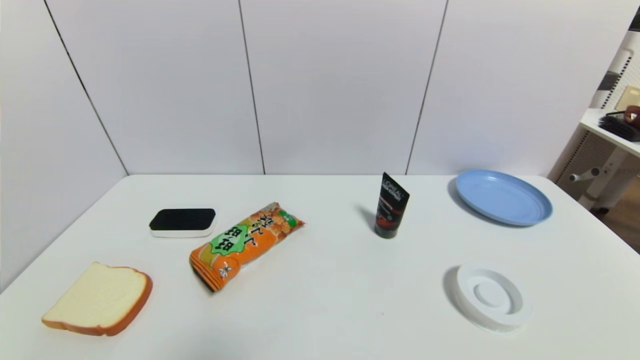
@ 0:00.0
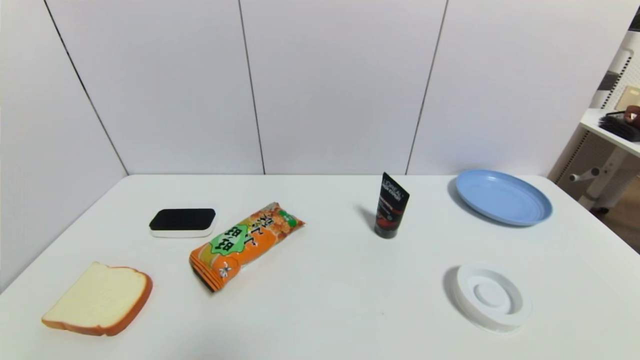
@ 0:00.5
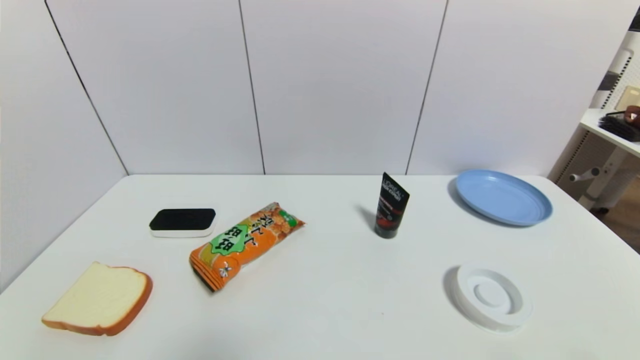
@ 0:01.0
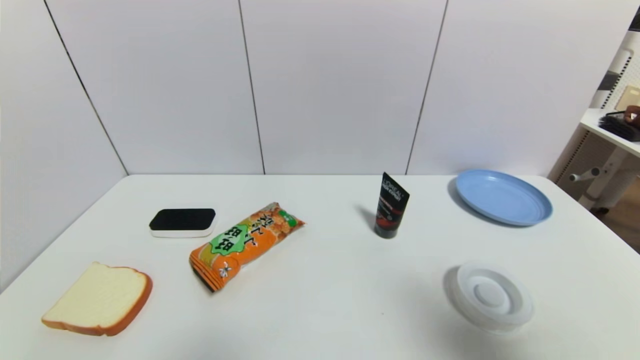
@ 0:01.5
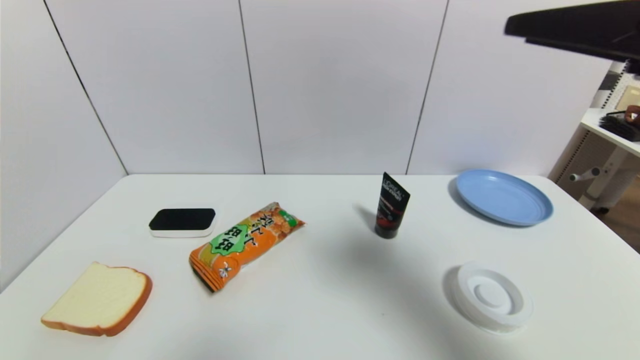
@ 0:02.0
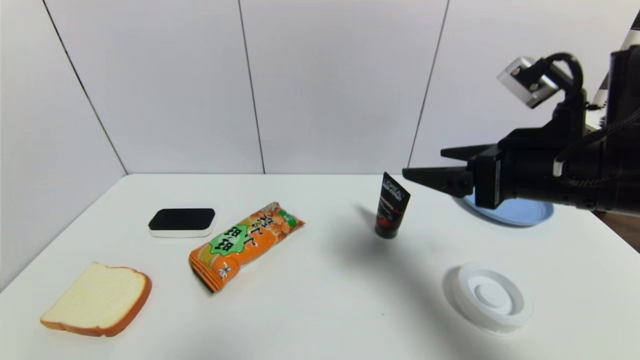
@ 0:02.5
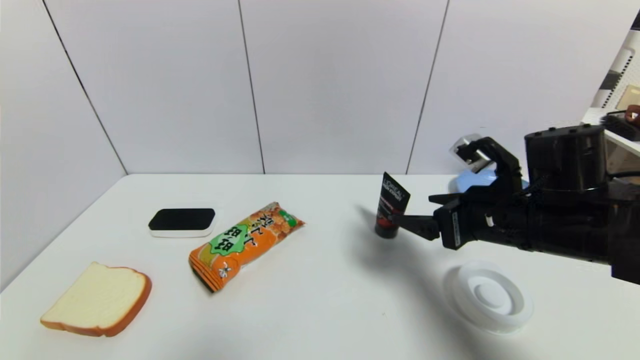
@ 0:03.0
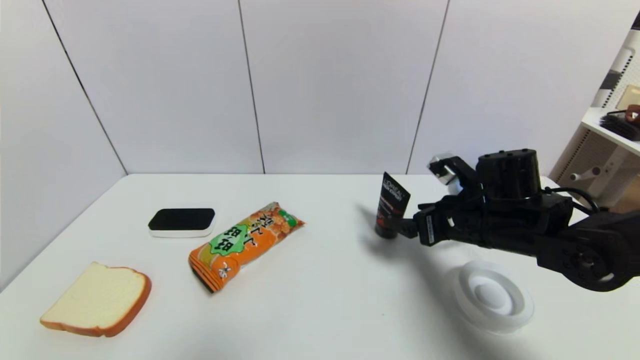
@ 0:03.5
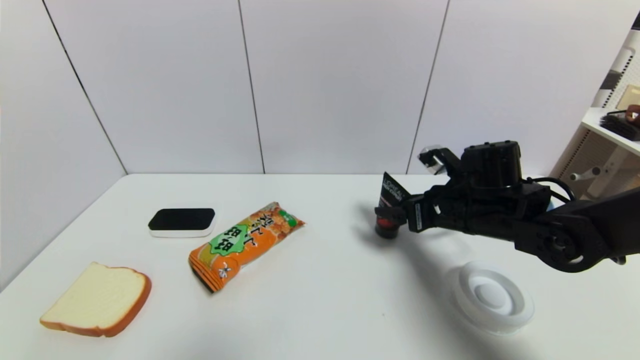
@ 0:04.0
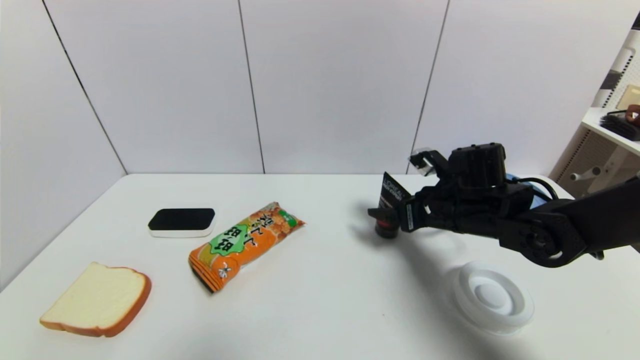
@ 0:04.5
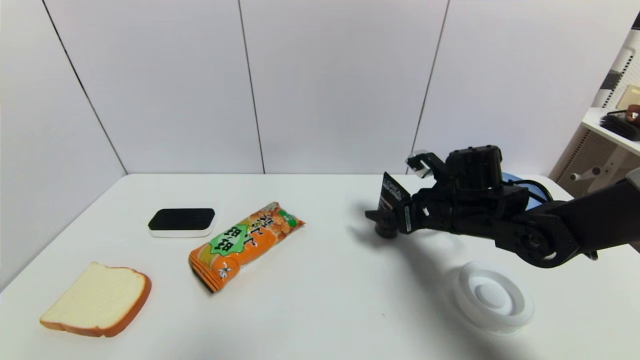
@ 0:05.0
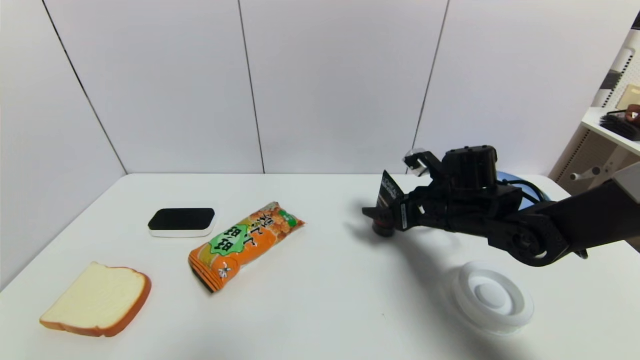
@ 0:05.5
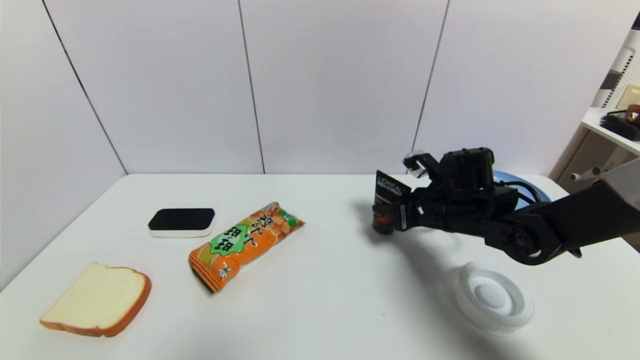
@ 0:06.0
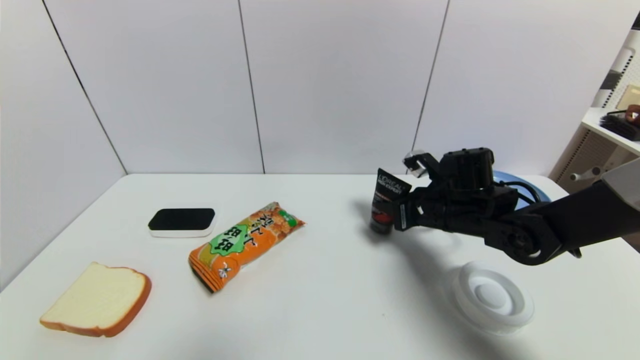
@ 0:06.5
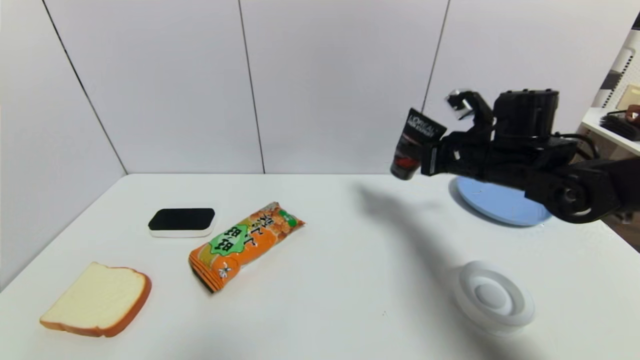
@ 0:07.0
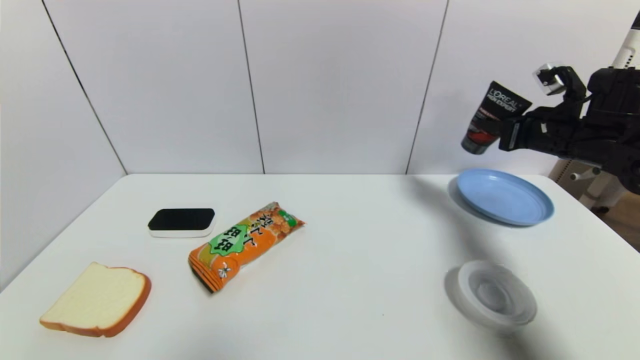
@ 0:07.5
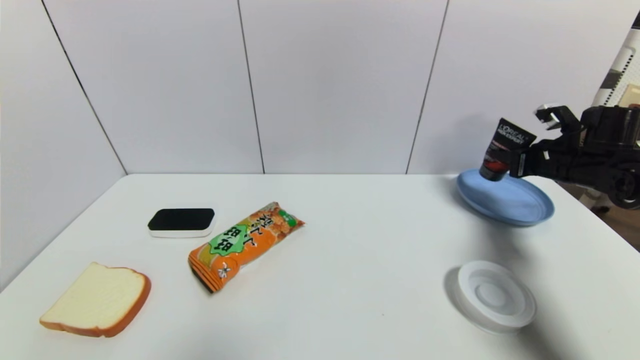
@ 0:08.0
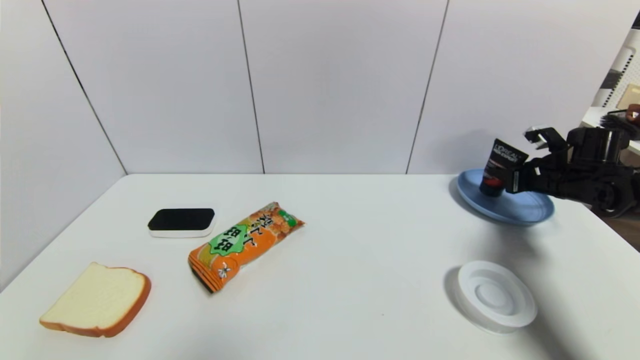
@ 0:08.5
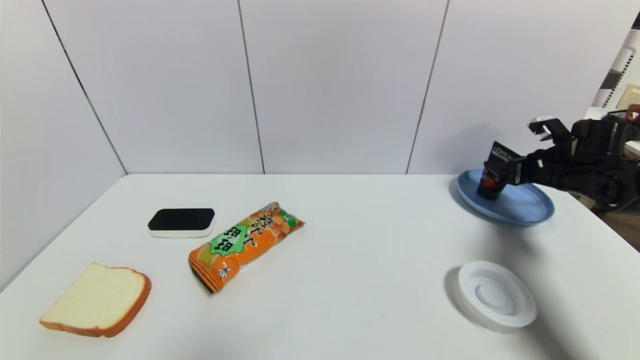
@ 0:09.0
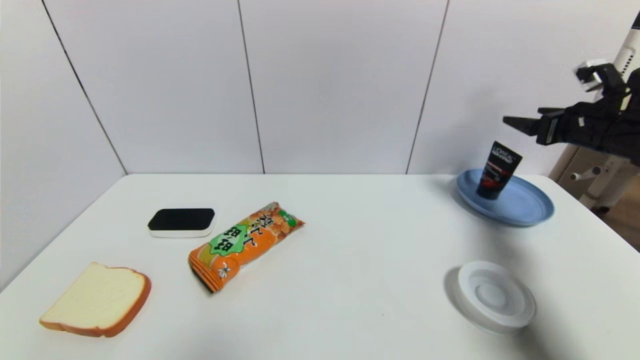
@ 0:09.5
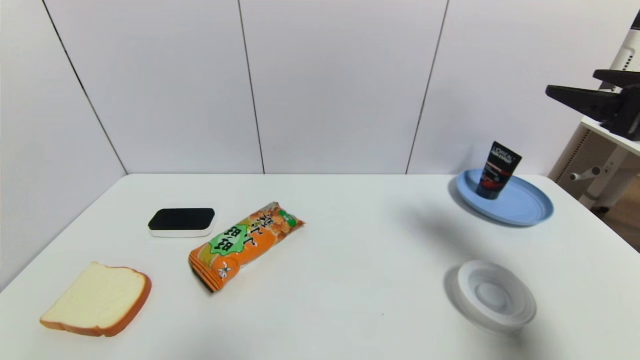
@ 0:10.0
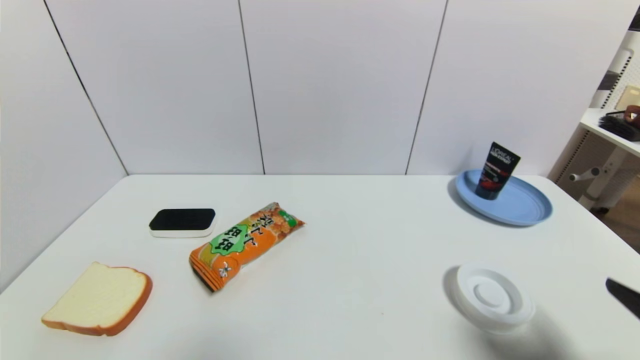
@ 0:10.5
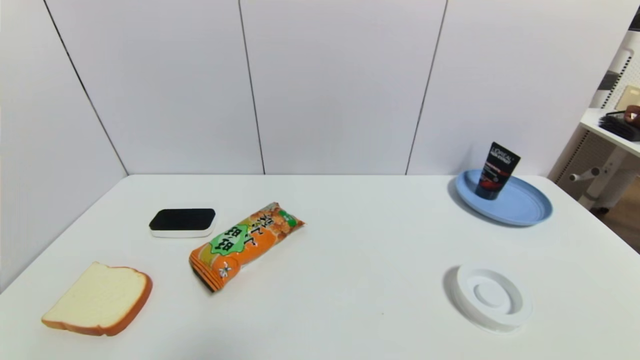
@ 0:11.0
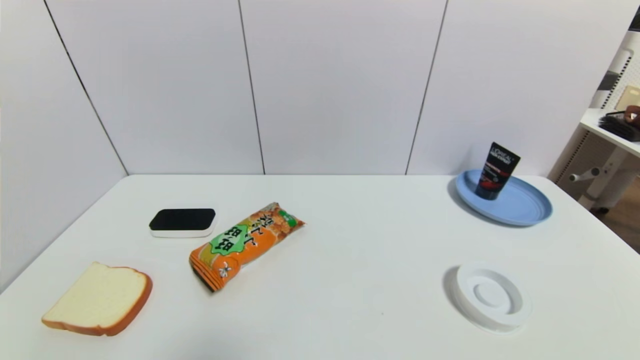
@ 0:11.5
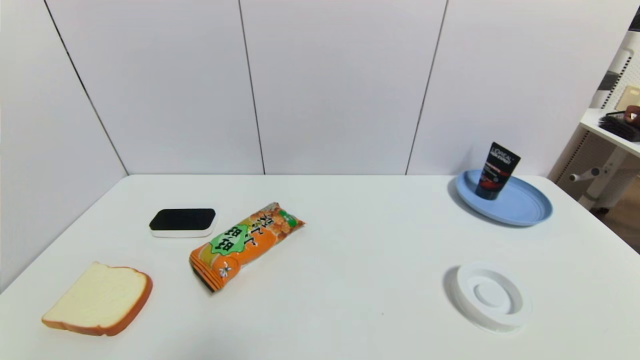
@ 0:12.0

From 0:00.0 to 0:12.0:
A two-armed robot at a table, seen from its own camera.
Task of the whole recording: use a gripper to pick the target object and place on the blue plate.
Step, from 0:00.0 to 0:06.0: Grasp the soft facial cleanser with the right gripper.
Step, from 0:06.5 to 0:09.0: Place the soft facial cleanser on the blue plate with the right gripper.
From 0:00.0 to 0:02.0: The right gripper is displaced upward and forward by approximately 35 cm.
From 0:02.0 to 0:04.0: The right gripper travels downward and forward by about 30 cm.
From 0:04.0 to 0:06.0: The right gripper closes its fingers.
From 0:06.0 to 0:08.0: The right gripper is displaced to the right by some 20 cm.
From 0:08.0 to 0:10.0: The right gripper heads backward and upward, covering roughly 20 cm, and opens up.
From 0:10.0 to 0:12.0: The right gripper is displaced backward and downward by roughly 35 cm.

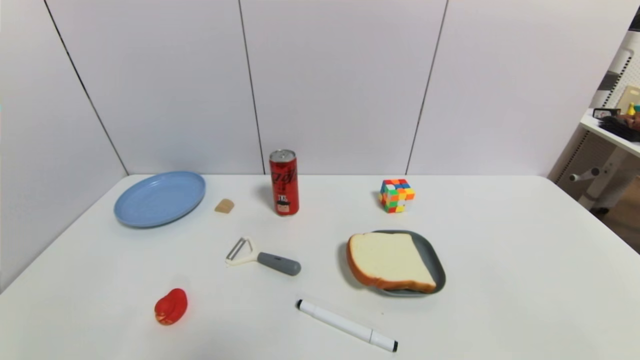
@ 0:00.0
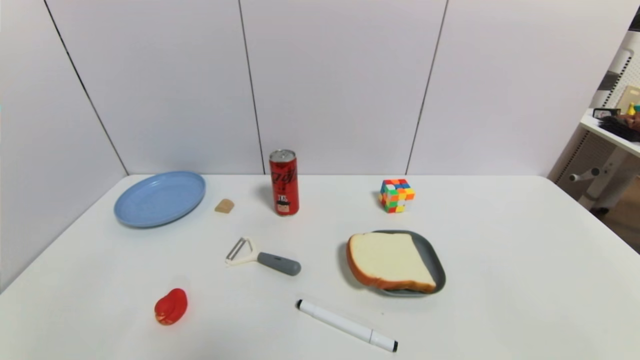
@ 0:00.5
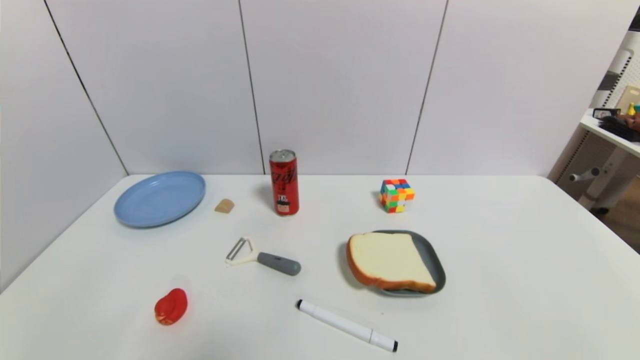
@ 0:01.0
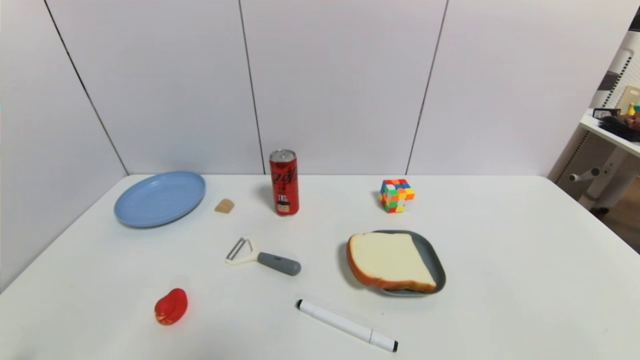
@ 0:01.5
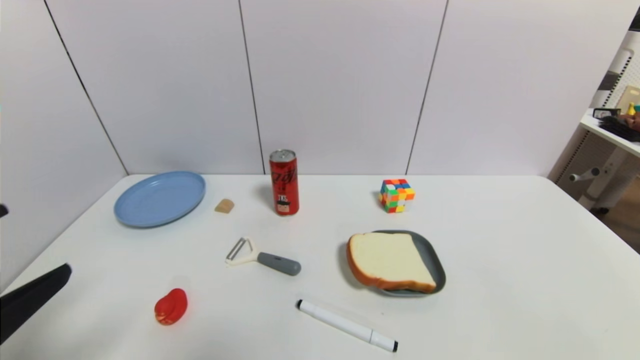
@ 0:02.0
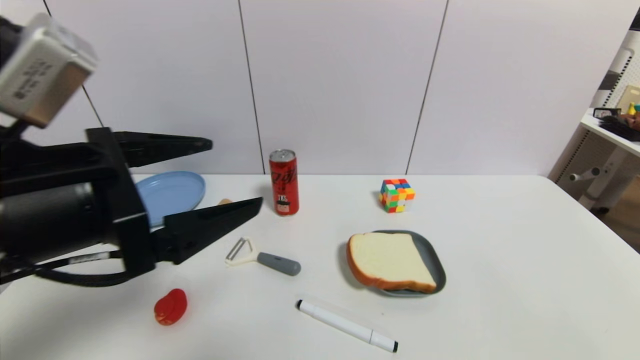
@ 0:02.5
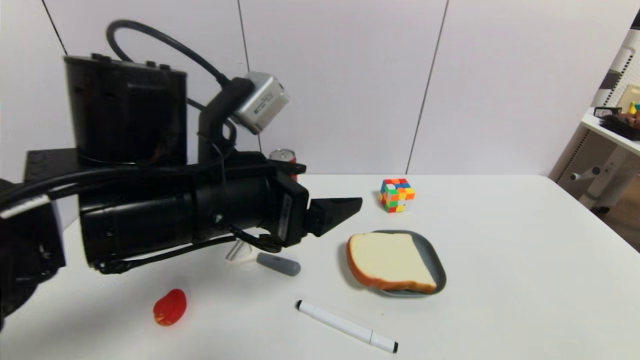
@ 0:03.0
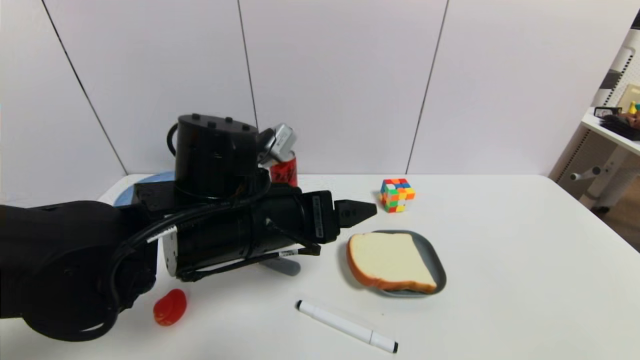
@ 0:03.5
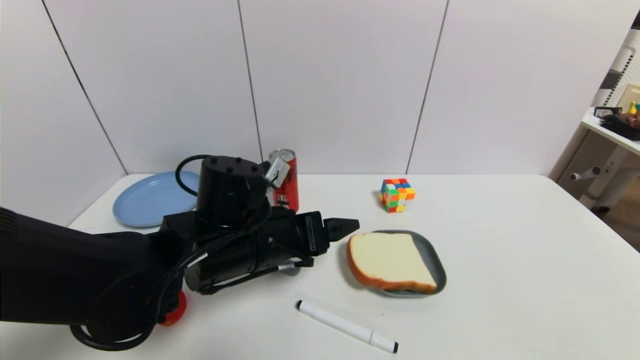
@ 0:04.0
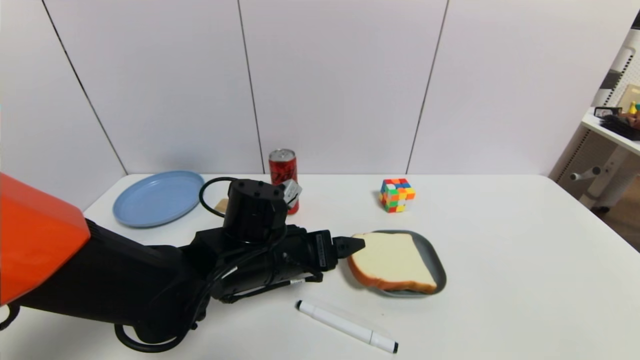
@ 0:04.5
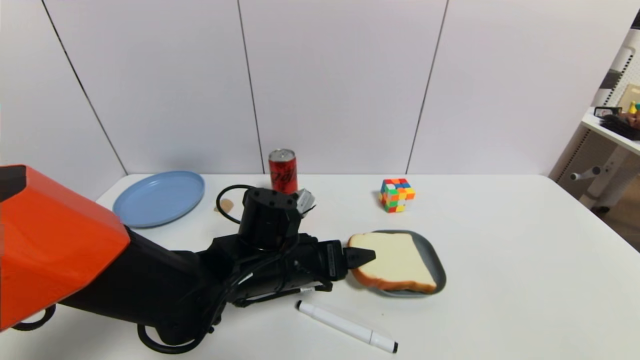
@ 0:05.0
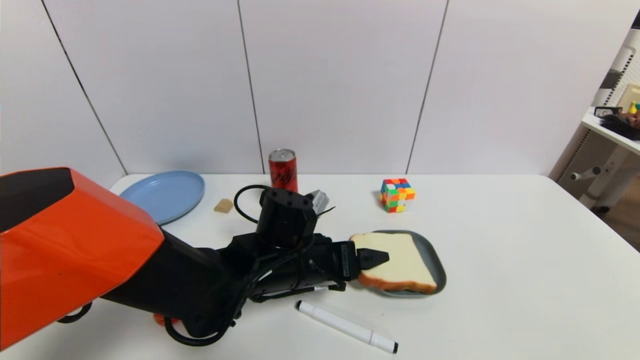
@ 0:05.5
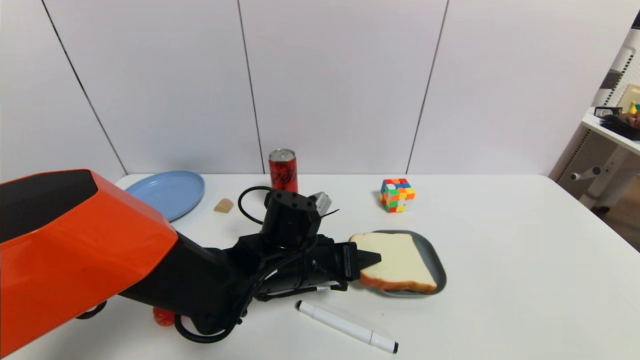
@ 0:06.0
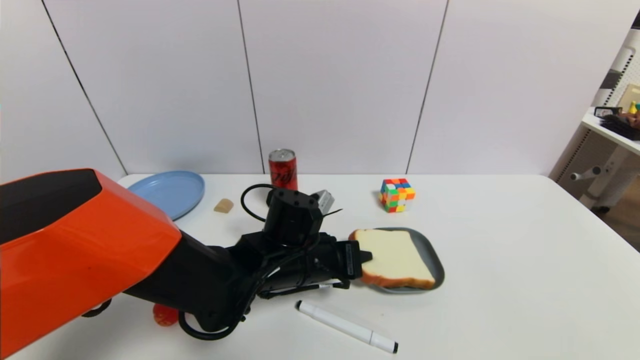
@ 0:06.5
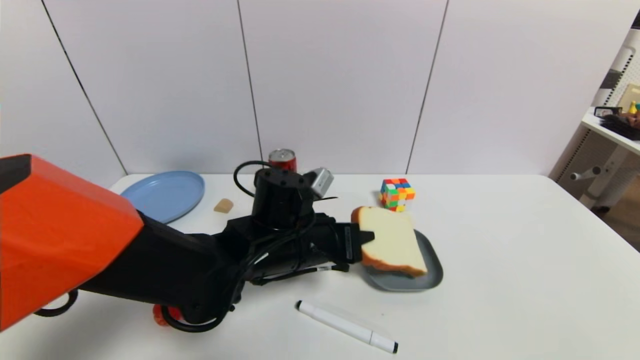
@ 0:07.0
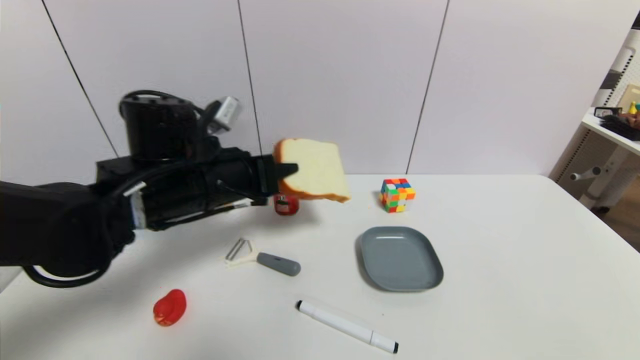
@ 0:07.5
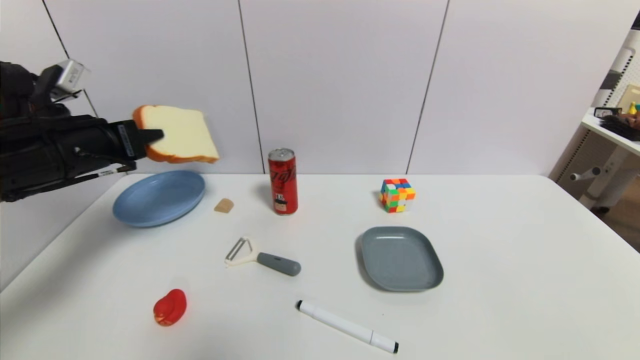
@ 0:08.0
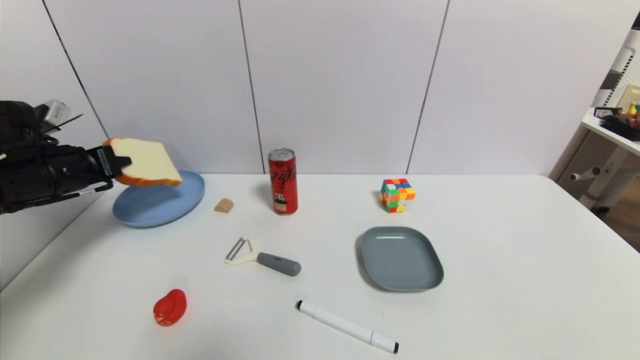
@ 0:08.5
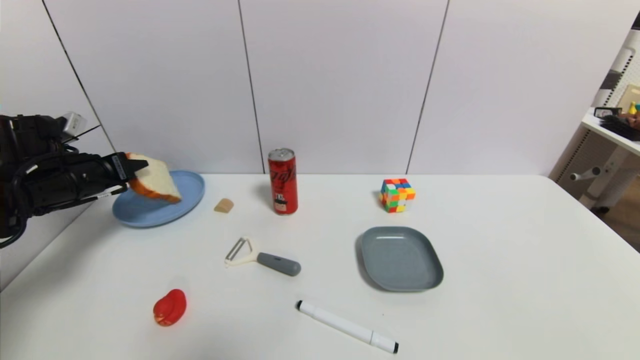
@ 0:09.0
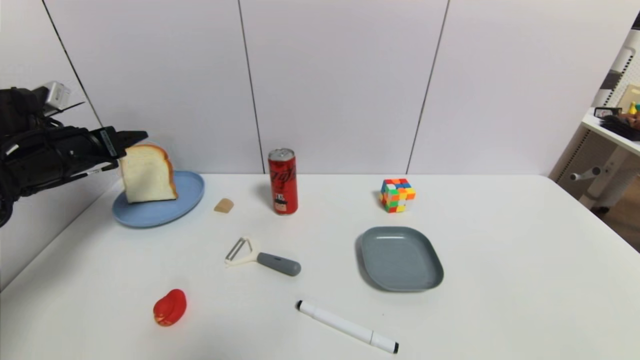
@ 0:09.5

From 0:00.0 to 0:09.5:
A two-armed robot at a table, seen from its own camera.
Task of the whole recording: use a gripper to pick the target object and place on the blue plate.
Step, from 0:00.0 to 0:06.0: Grasp the round bread with the left gripper.
From 0:00.0 to 0:02.0: The left gripper is displaced upward by approximately 20 cm.
From 0:02.0 to 0:04.0: The left gripper travels to the right, forward and downward by approximately 30 cm.
From 0:04.0 to 0:05.5: The left gripper is displaced downward by approximately 5 cm.
From 0:05.5 to 0:07.5: The left gripper heads upward and to the left, covering approximately 15 cm, and closes up.
From 0:07.5 to 0:09.5: The left gripper is displaced to the left by roughly 20 cm, and opens its fingers.
